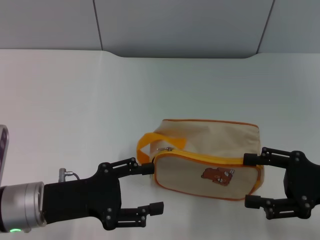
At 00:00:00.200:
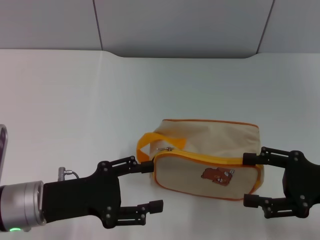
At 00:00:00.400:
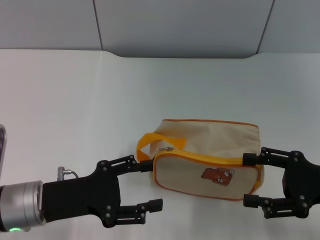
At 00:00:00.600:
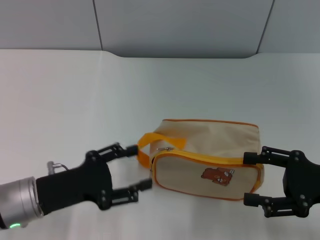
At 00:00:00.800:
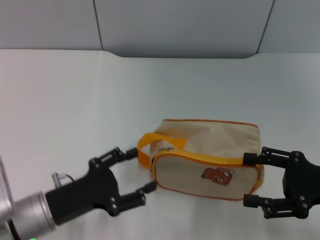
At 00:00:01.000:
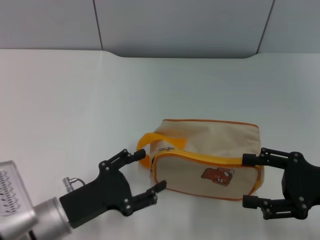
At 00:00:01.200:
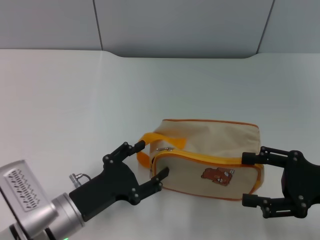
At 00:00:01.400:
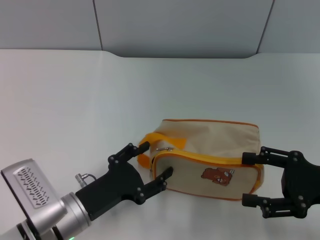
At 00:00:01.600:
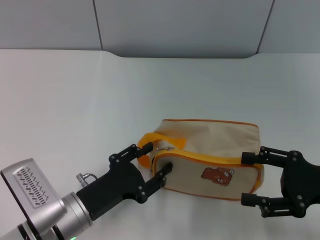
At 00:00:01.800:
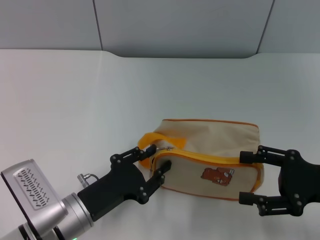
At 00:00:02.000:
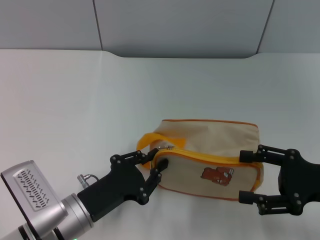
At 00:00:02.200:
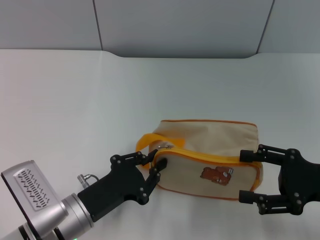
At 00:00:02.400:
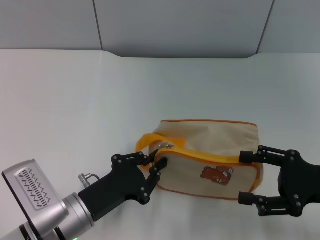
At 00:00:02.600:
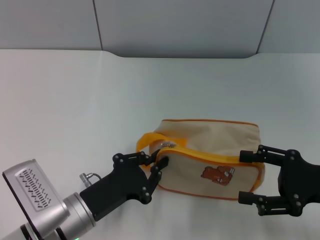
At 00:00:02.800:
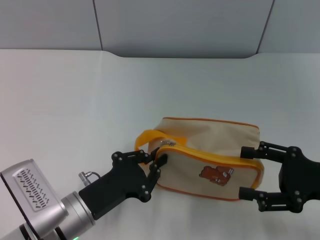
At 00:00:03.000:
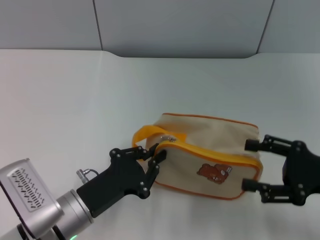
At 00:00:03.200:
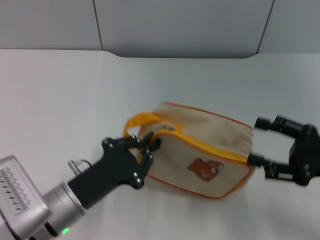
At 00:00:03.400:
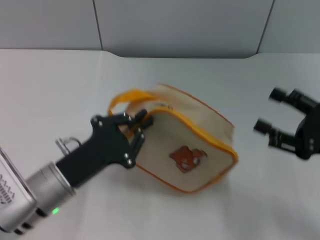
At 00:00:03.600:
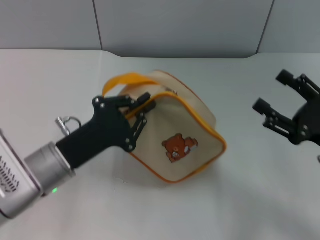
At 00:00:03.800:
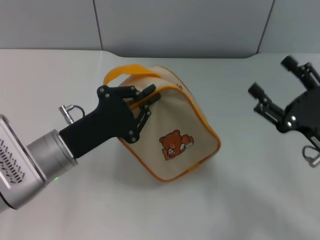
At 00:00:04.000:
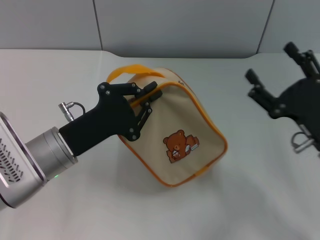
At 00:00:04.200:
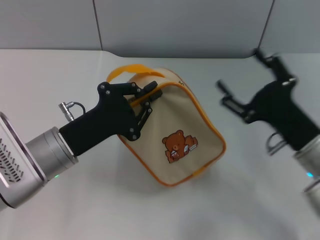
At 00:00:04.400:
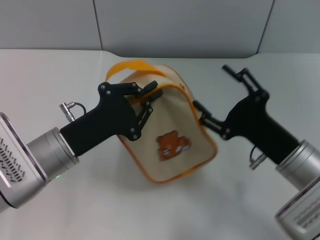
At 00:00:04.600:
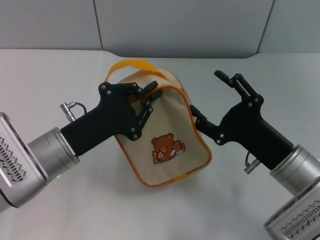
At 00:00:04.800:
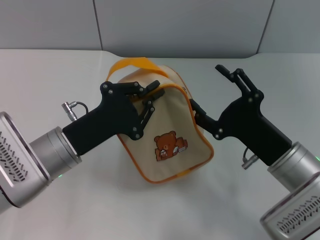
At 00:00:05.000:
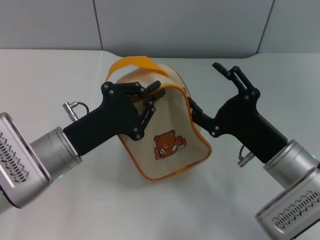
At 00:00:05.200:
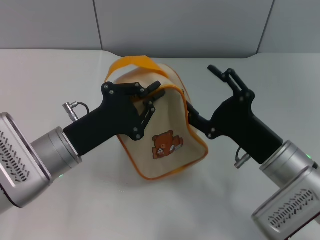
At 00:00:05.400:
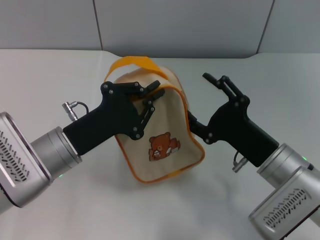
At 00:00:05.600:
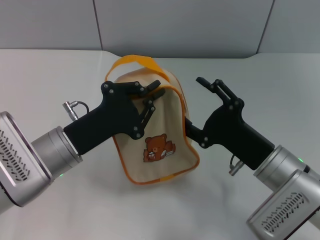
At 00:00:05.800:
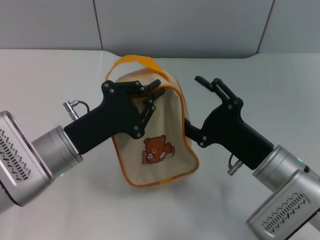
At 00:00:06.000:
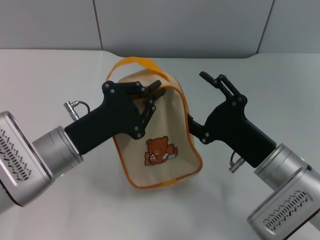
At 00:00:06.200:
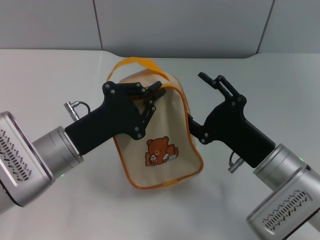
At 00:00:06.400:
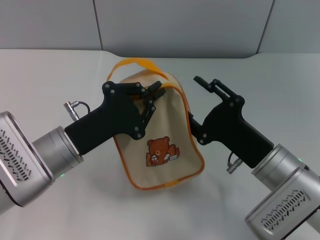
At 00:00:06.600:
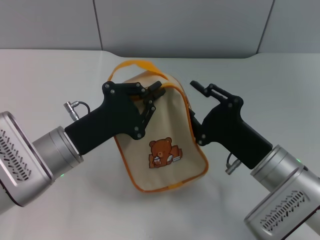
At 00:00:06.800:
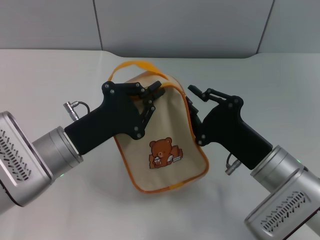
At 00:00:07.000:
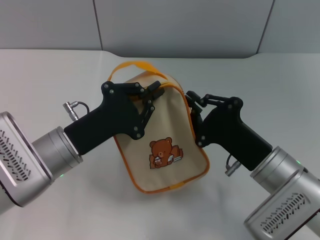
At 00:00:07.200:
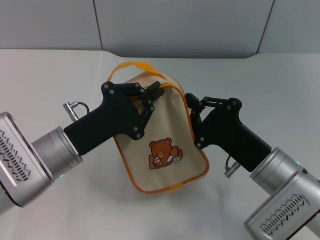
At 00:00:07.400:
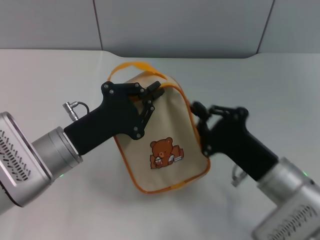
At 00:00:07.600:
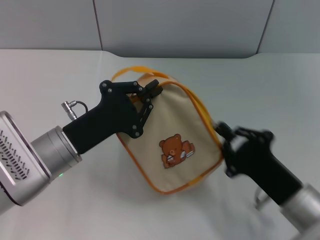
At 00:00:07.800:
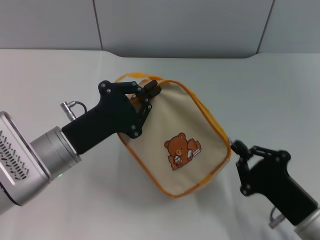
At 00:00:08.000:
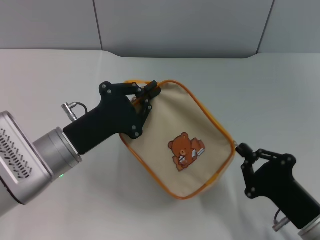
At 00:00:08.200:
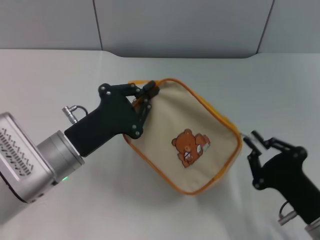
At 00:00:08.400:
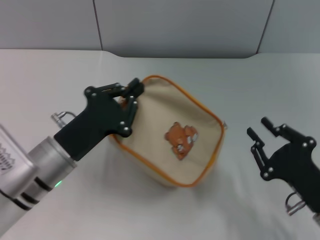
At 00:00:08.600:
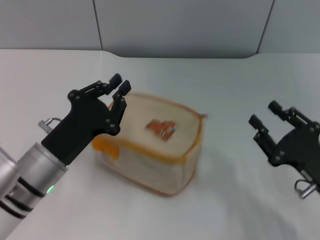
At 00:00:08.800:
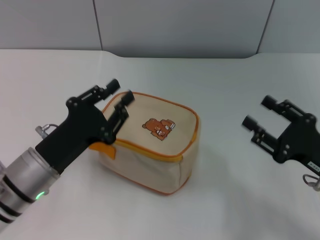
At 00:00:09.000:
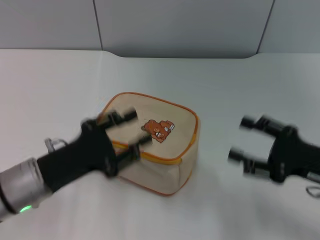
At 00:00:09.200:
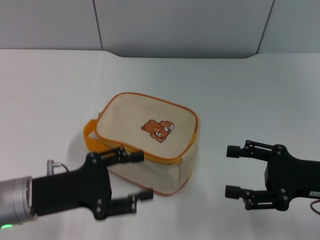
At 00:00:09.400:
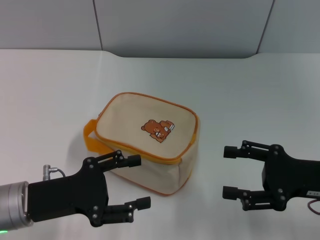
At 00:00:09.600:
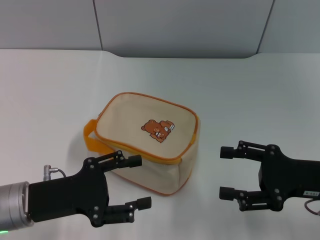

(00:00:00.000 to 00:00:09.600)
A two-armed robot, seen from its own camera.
Step, 00:00:00.000 - 00:00:03.600: Pick up the bag with left gripper.
Step, 00:00:03.800 - 00:00:08.200: Unzip the zipper of bag with right gripper.
Step, 00:00:08.400 - 00:00:08.600: Place the bag on the table with left gripper.
00:00:00.000 - 00:00:01.600: The left gripper moves downward and to the right, roughly 10 cm.
00:00:01.600 - 00:00:03.200: The left gripper closes up.
00:00:03.200 - 00:00:04.800: The right gripper travels to the left by roughly 10 cm; the left gripper heads forward, covering roughly 5 cm.
00:00:04.800 - 00:00:06.400: There are only small adjustments of the grippers.
00:00:06.400 - 00:00:08.000: The right gripper travels backward and to the right by approximately 10 cm, and closes up.
00:00:08.000 - 00:00:09.600: The right gripper is displaced upward and forward by about 10 cm, and opens. Meanwhile the left gripper is displaced to the left by roughly 5 cm, and opens its fingers.
